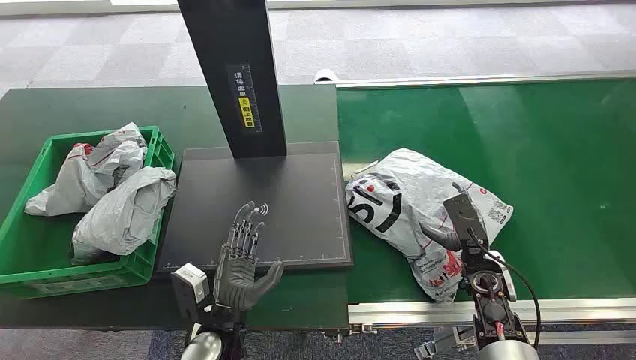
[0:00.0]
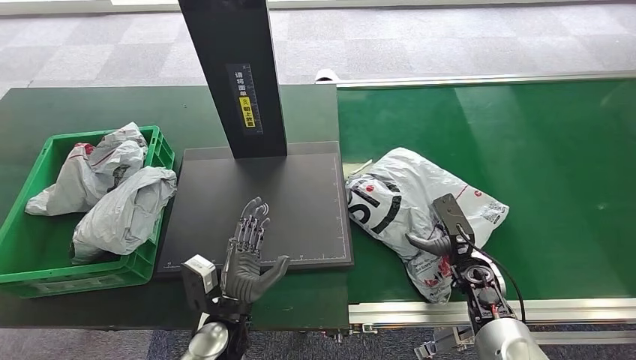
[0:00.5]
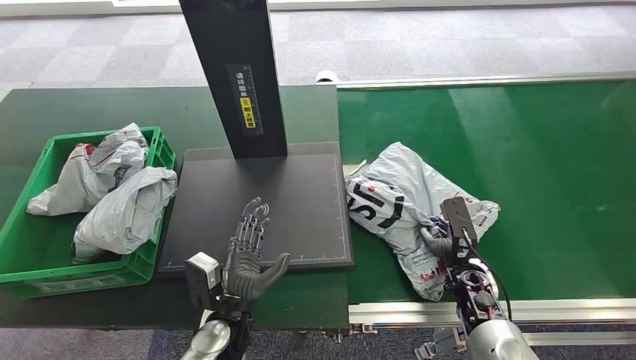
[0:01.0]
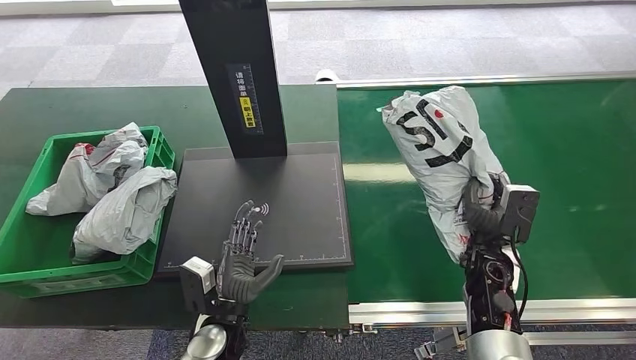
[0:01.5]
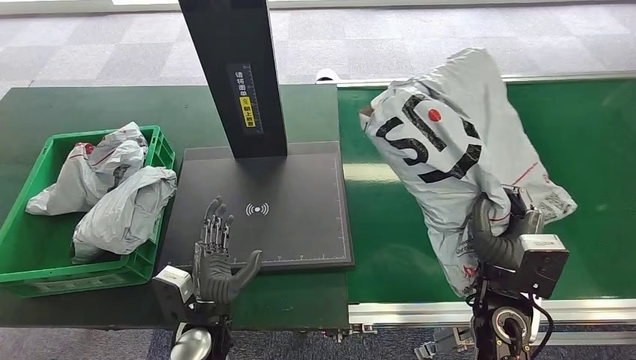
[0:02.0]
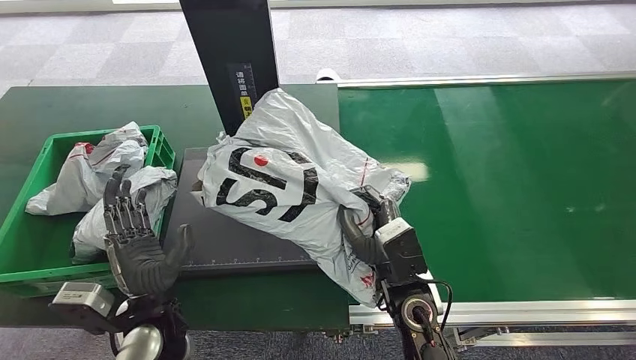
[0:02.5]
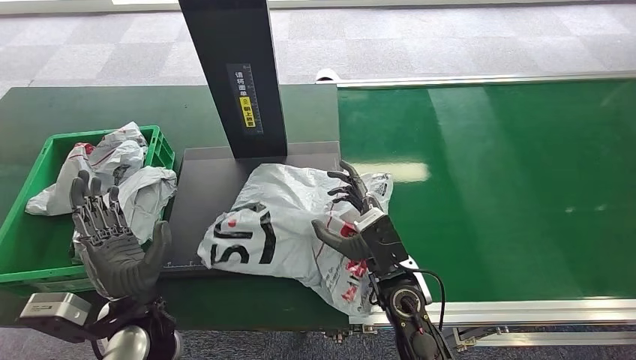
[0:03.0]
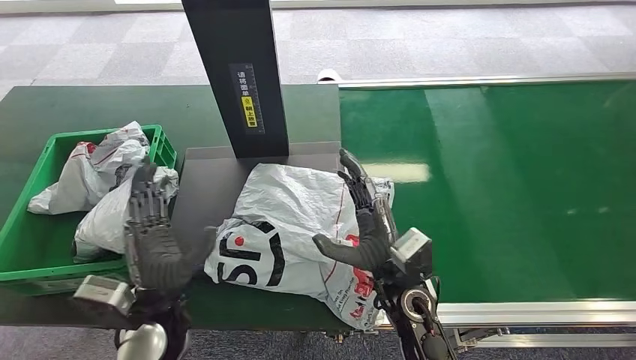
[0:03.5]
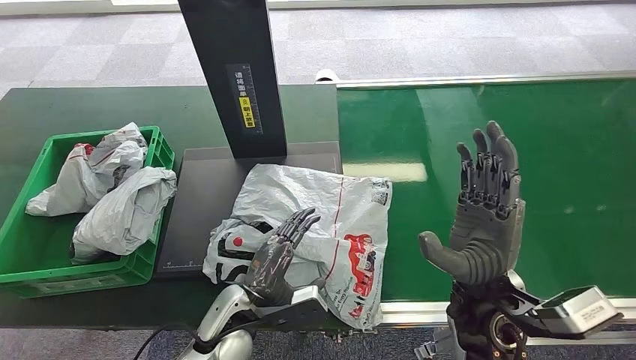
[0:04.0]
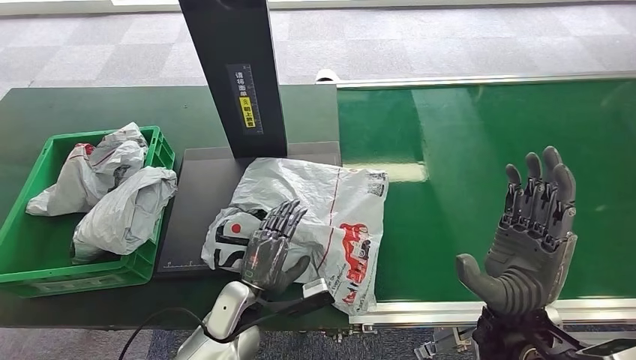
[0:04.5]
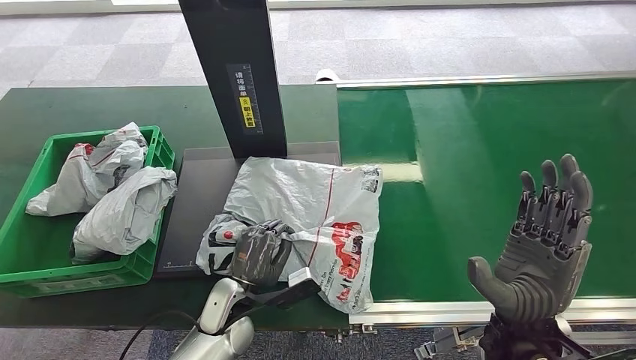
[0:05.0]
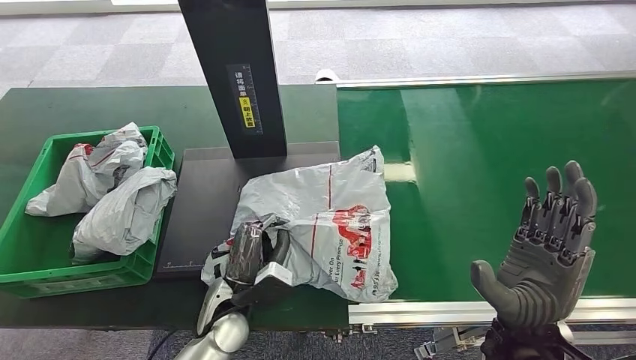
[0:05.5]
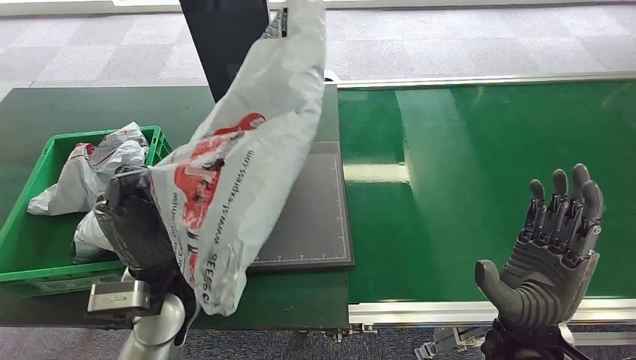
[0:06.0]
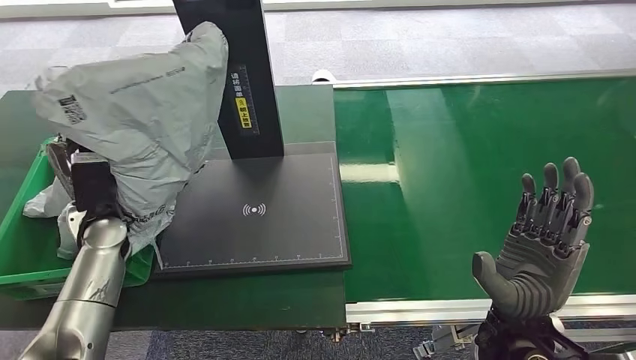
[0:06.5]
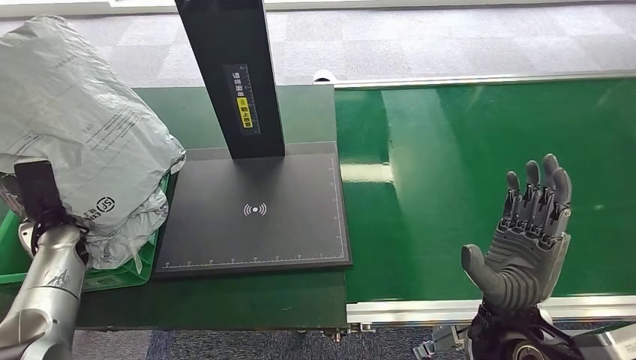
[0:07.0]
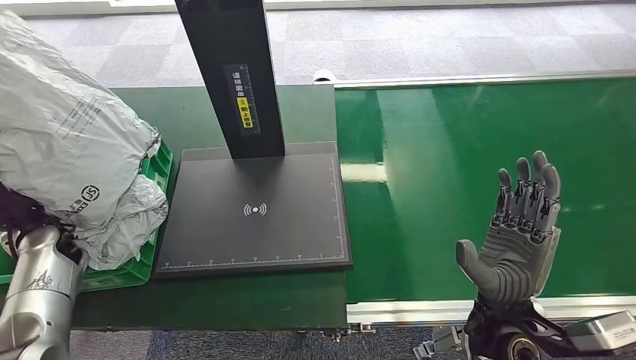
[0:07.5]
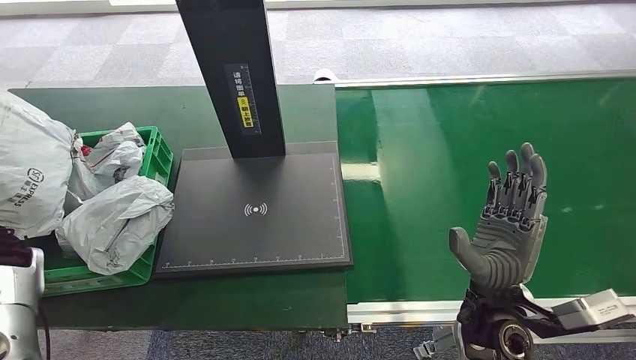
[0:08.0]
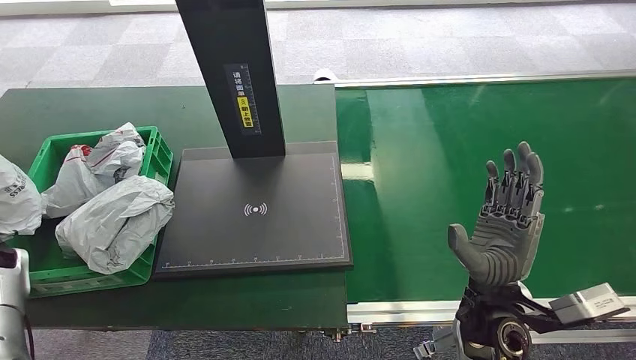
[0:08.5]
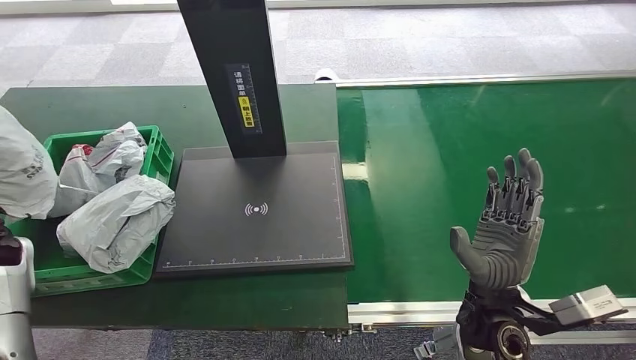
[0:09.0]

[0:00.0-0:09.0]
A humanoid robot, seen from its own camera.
Step, 0:00.0 to 0:01.5: Pick up the package from the conveyor belt.
Step, 0:02.0 to 0:03.5: Place the package onto the inbound machine.
Step, 0:04.0 to 0:06.0: Pick up the package from the inbound machine.

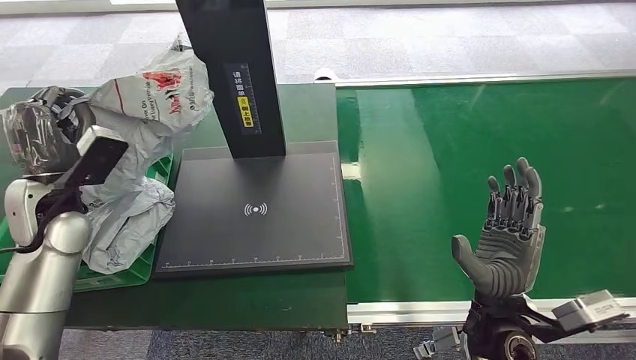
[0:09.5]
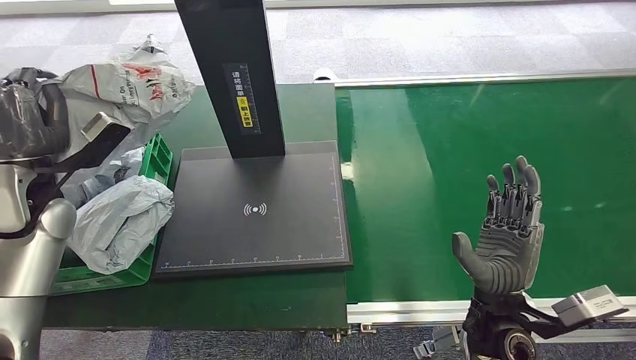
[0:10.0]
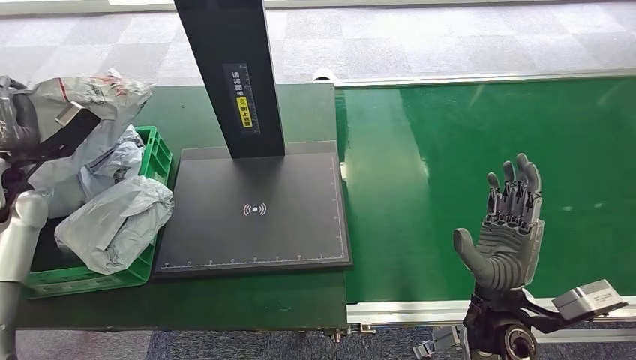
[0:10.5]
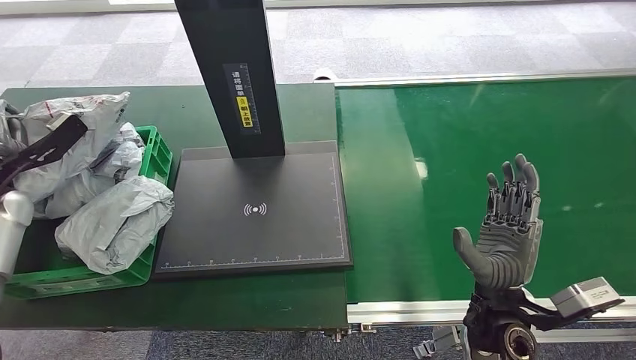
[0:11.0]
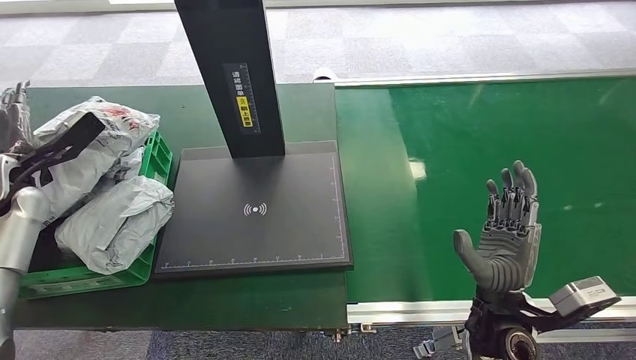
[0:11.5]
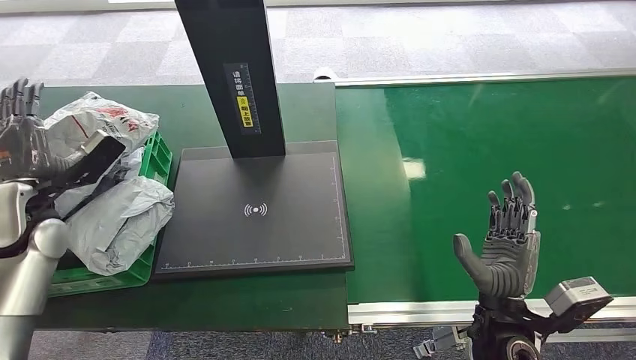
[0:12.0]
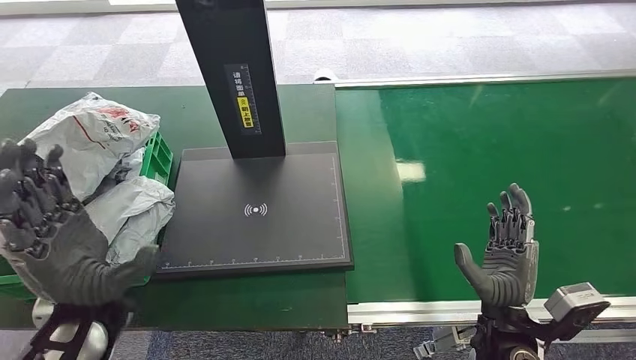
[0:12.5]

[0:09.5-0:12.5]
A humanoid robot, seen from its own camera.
Step, 0:09.5 to 0:12.5: Place the package into the parcel locker.
0:09.5 to 0:11.0: The left hand travels to the left by about 10 cm.
0:11.0 to 0:12.5: The left hand is displaced to the right and backward by approximately 25 cm.
